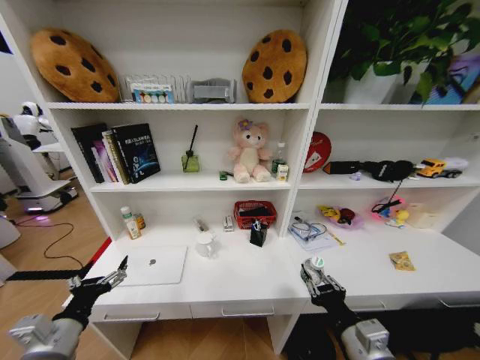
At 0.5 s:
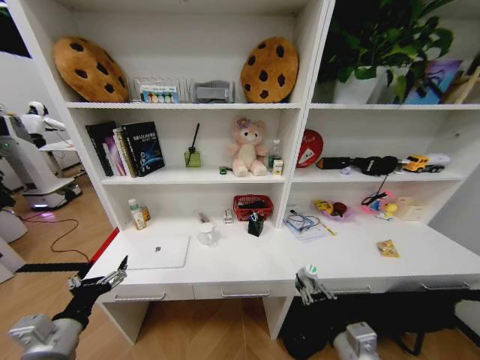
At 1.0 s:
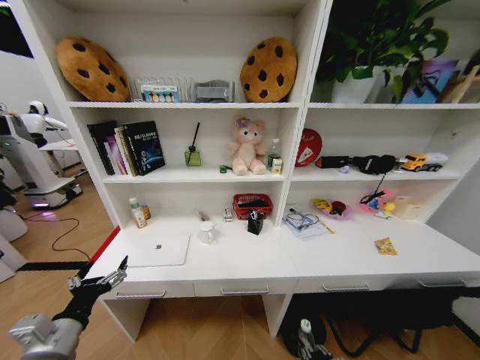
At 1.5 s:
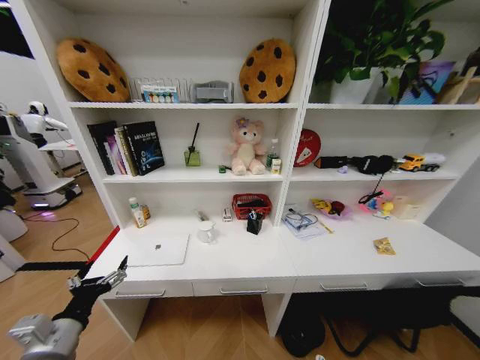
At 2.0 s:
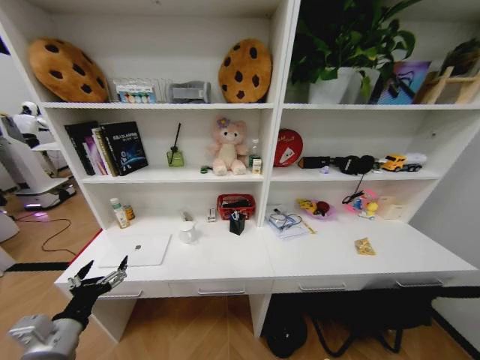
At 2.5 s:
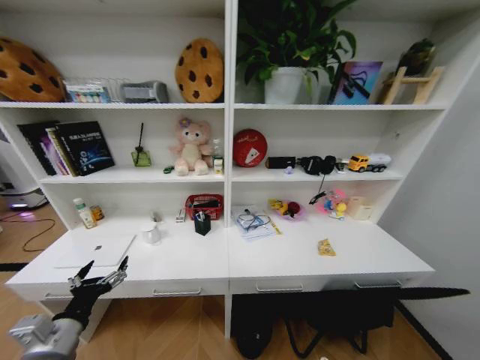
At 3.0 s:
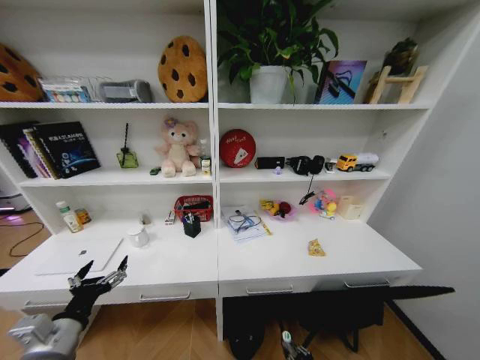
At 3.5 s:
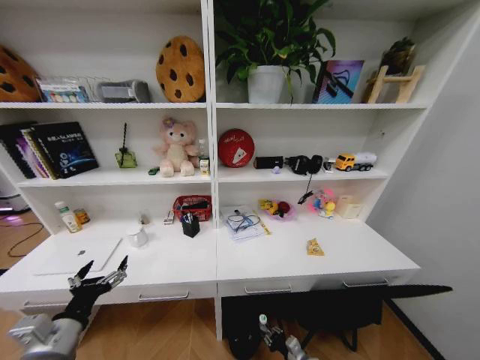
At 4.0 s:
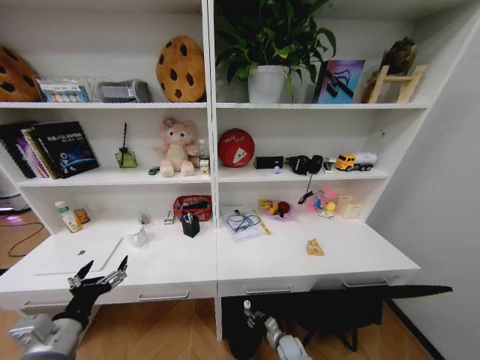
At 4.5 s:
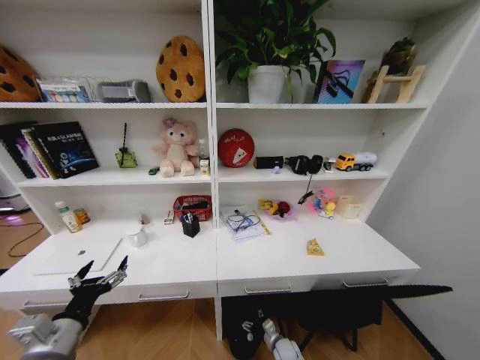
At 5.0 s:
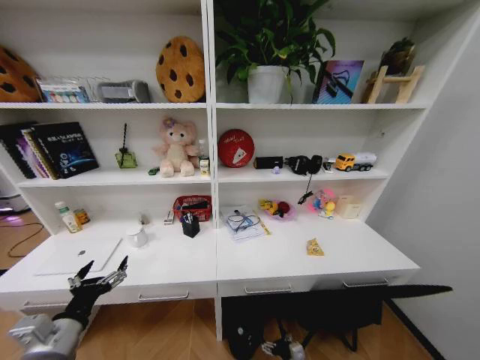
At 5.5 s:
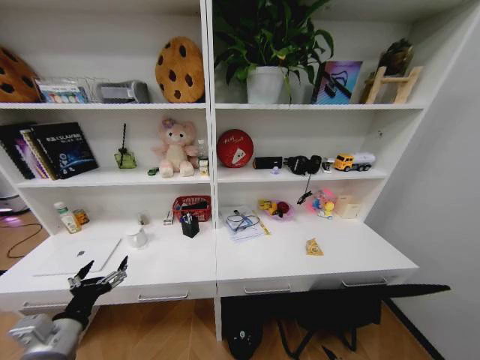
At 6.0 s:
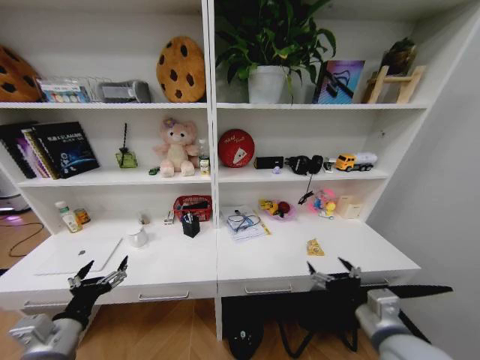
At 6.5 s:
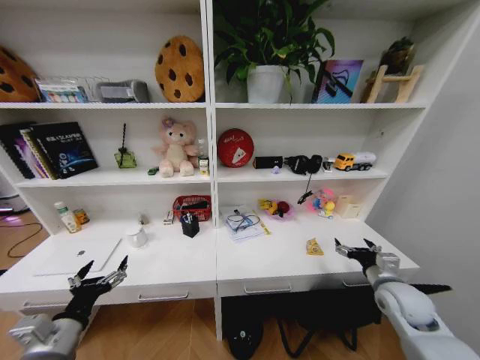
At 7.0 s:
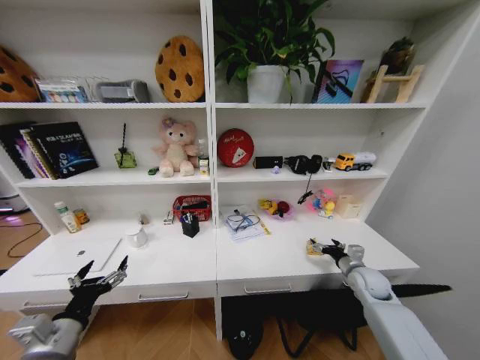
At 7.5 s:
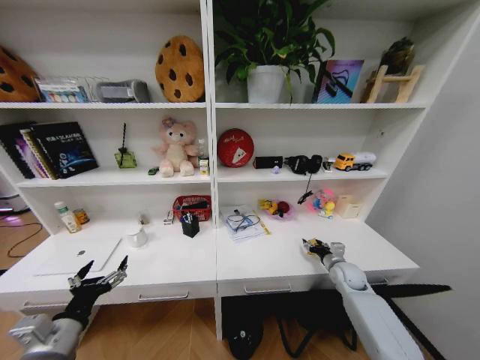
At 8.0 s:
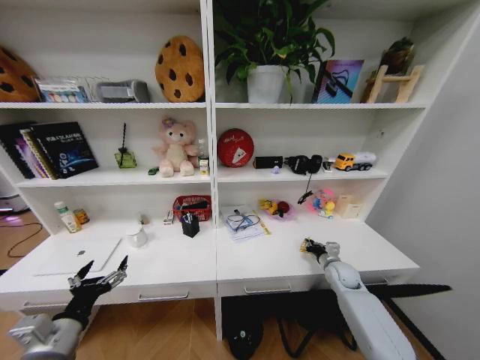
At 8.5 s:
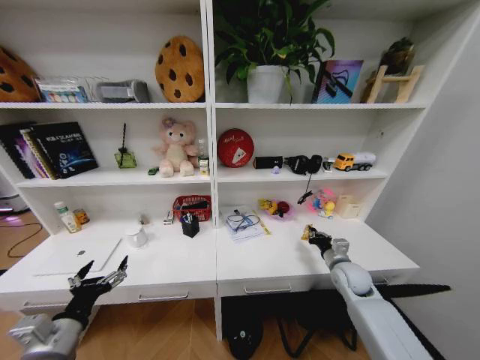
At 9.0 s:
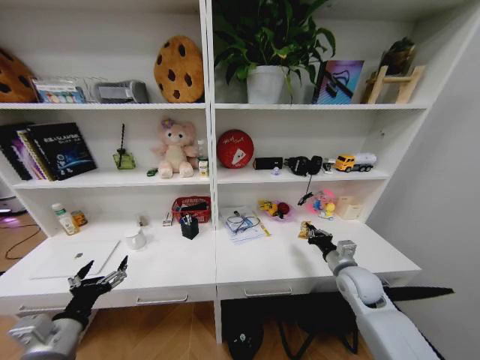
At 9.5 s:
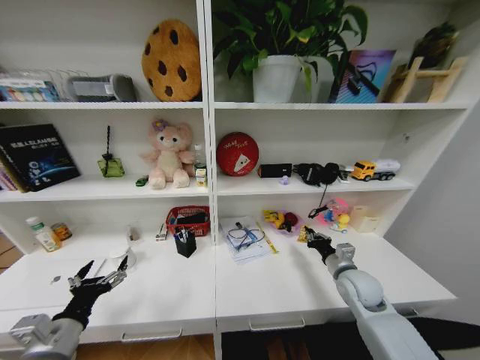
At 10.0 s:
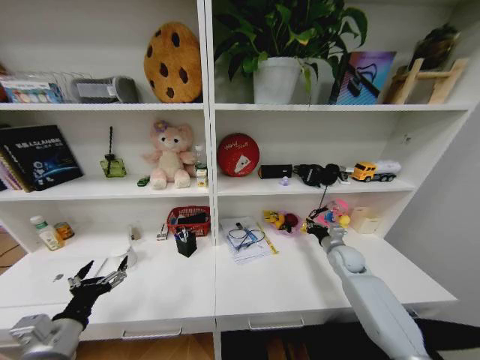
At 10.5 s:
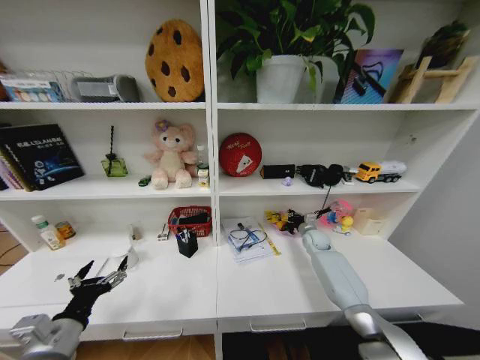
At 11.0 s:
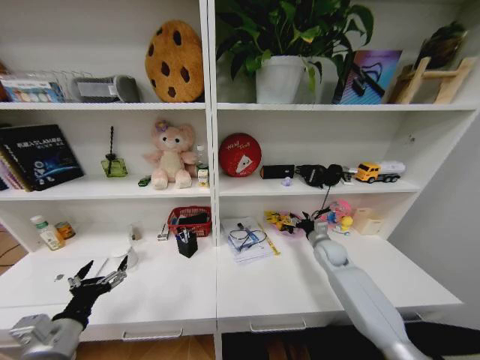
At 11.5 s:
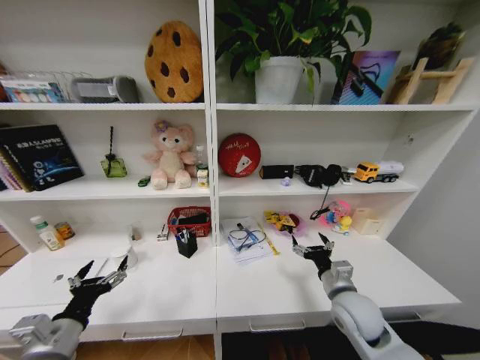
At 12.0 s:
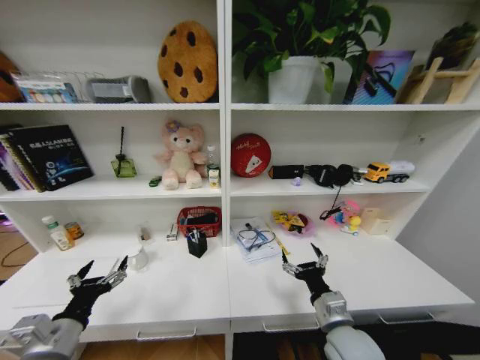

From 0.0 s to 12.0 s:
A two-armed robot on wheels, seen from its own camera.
Task of the whole recording: Organize the objects on the table.
From 0.0 s to 2.0 s: The right gripper goes roughly 30 cm downward and backward.
From 2.0 s to 4.0 s: The right gripper goes some 30 cm forward, downward and to the left.
From 4.0 s to 6.0 s: The right gripper moves upward, about 40 cm, and opens its fingers.
From 6.0 s to 8.0 s: The right gripper goes some 35 cm forward, downward and to the right, and closes up.
From 8.0 s to 10.0 s: The right gripper shifts about 5 cm upward, and moves roughly 10 cm backward and comes back.
From 10.0 s to 12.0 s: The right gripper is displaced backward and to the left by roughly 30 cm, and opens up.

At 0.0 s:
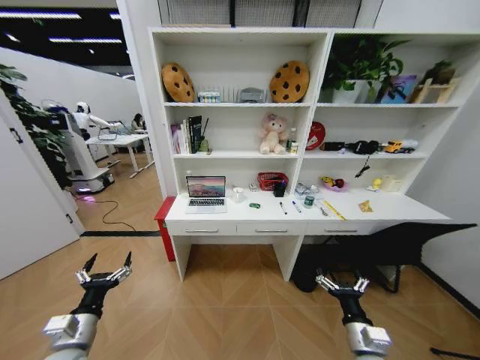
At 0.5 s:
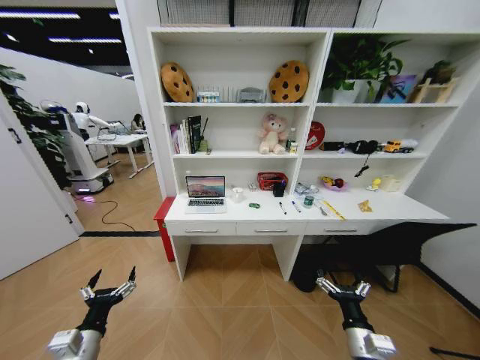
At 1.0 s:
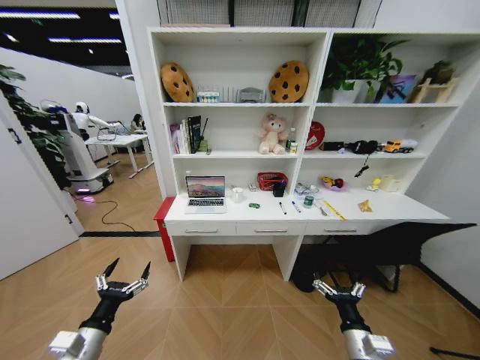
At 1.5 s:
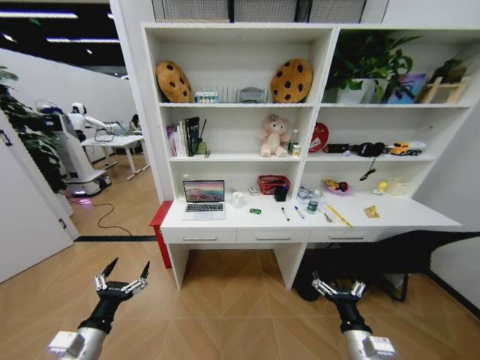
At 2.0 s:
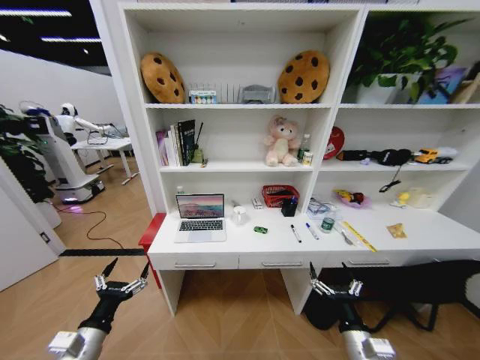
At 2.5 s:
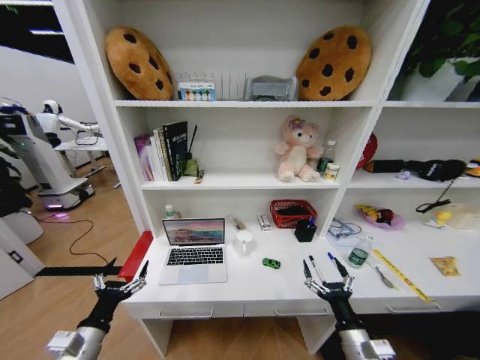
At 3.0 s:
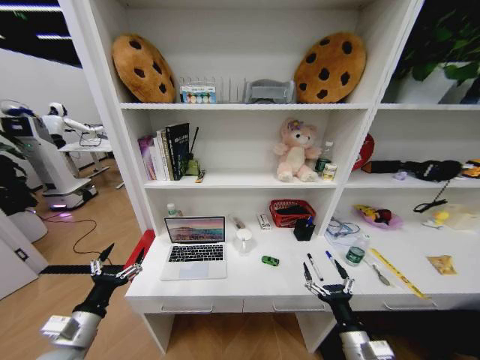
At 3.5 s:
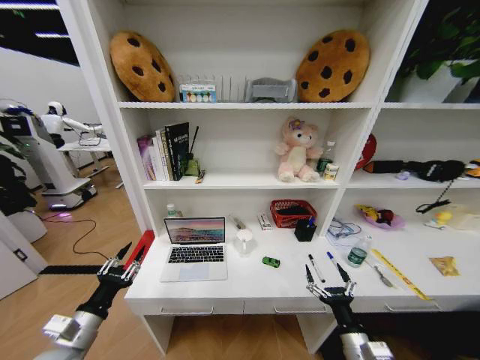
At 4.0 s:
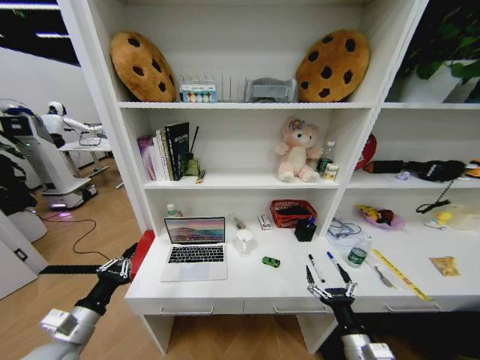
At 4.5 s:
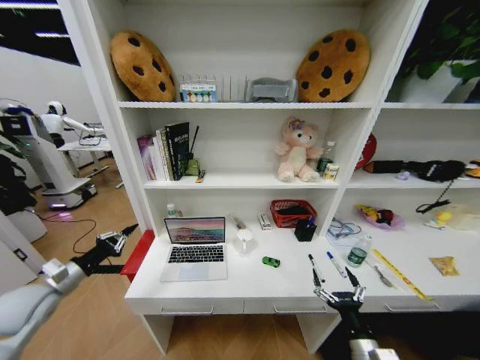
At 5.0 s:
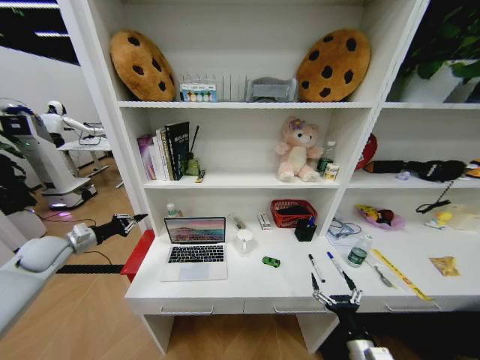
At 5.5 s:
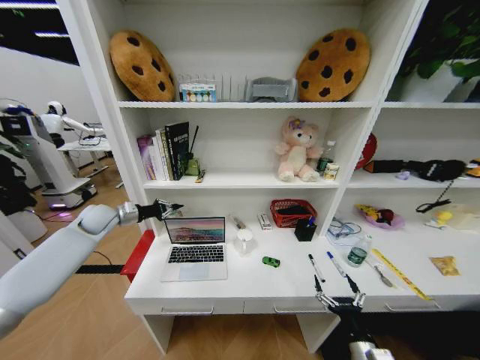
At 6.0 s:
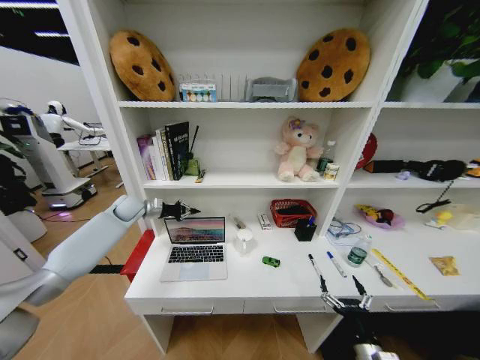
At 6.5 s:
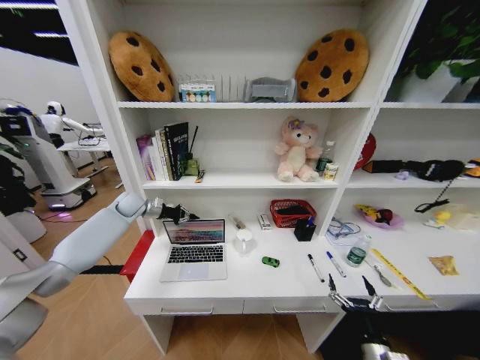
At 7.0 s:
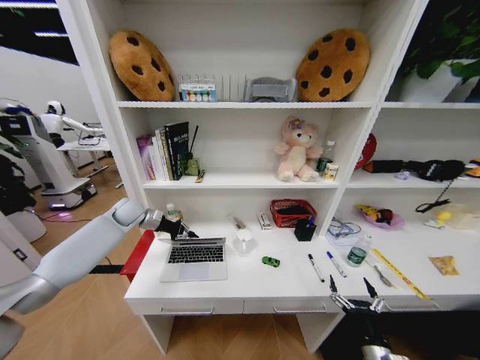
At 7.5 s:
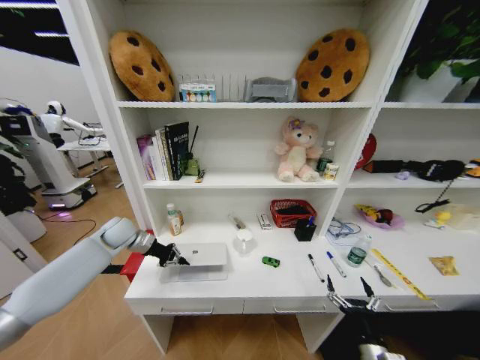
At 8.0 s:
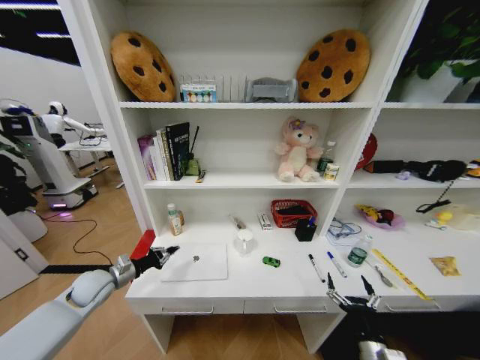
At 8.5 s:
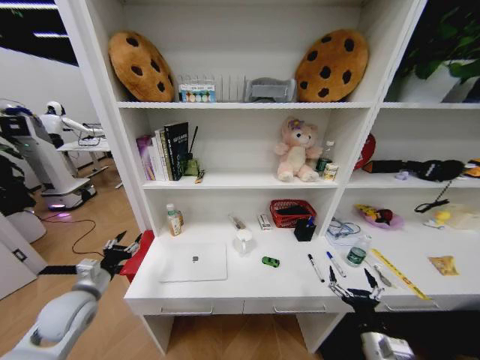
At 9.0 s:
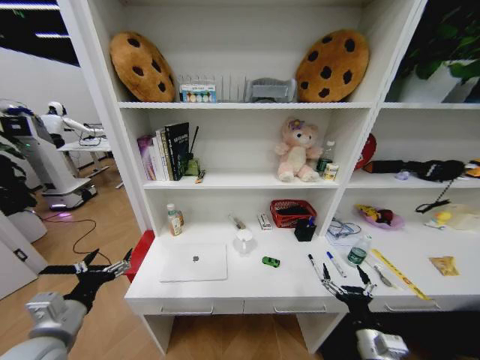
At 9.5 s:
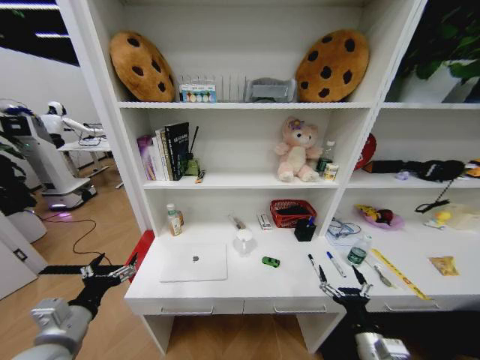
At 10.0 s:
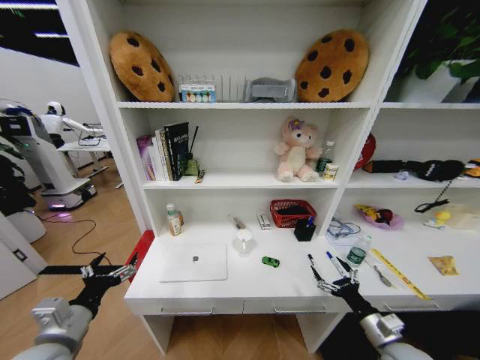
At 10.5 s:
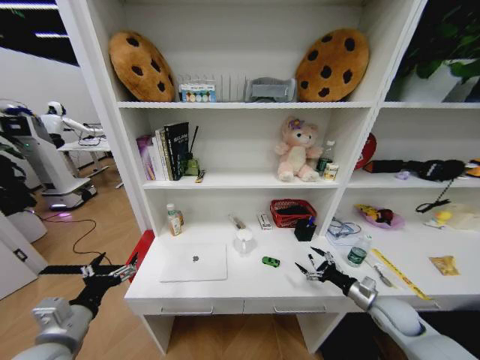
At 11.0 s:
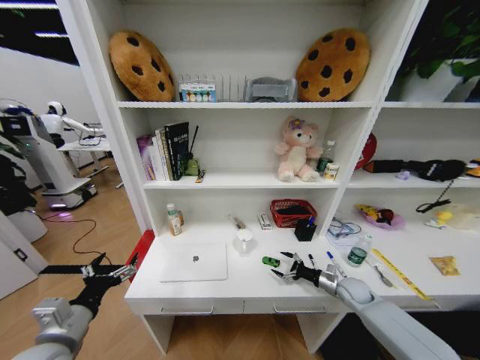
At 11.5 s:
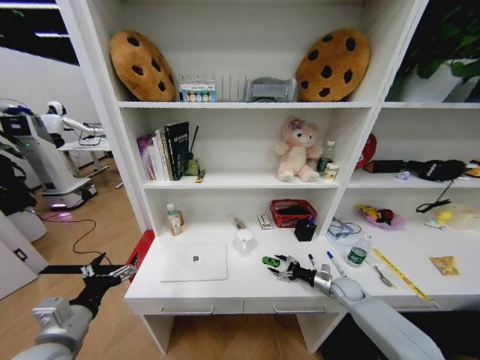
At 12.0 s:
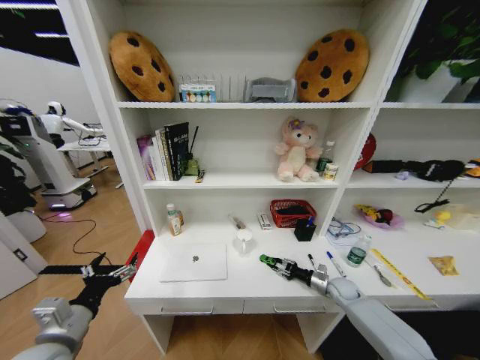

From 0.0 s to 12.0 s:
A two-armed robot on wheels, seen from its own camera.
Task of the whole recording: Organize the objects on the table.
From 2.0 s to 4.0 s: The left gripper changes place by approximately 5 cm, and closes its fingers.
From 4.0 s to 6.0 s: The left gripper goes some 40 cm forward.
From 6.0 s to 8.0 s: The left gripper goes some 25 cm backward and downward.
From 8.0 s to 10.0 s: The right gripper shifts some 5 cm to the right and forward, while the left gripper travels backward by approximately 20 cm, and opens its fingers.
From 10.0 s to 12.0 s: The right gripper moves forward and downward, some 25 cm, and closes.

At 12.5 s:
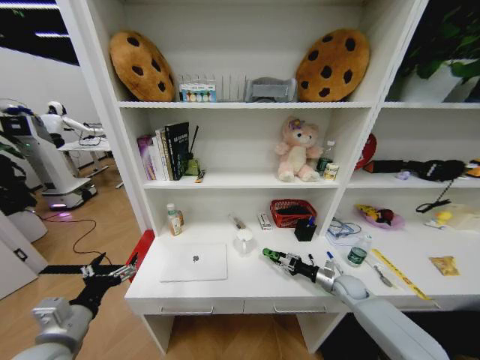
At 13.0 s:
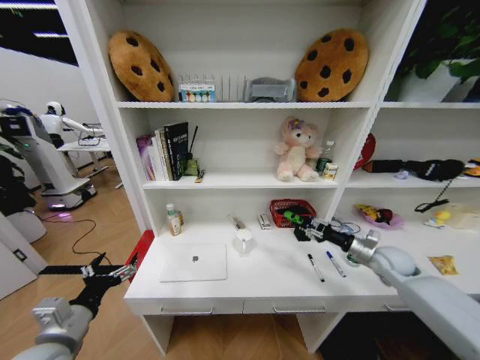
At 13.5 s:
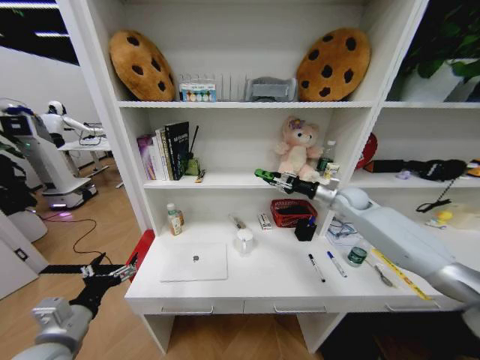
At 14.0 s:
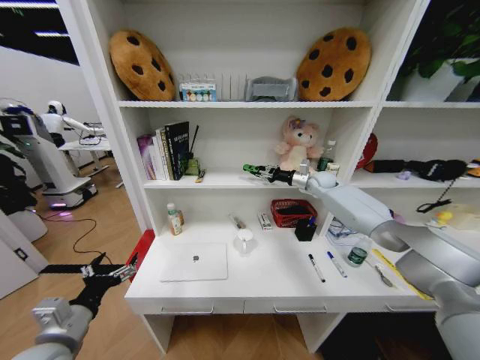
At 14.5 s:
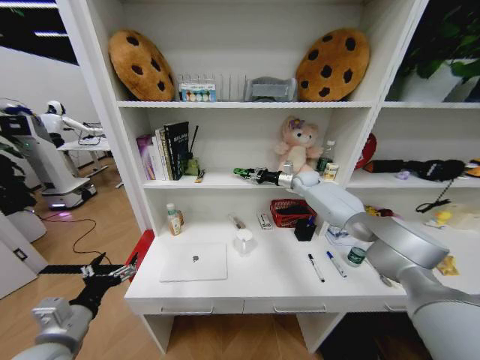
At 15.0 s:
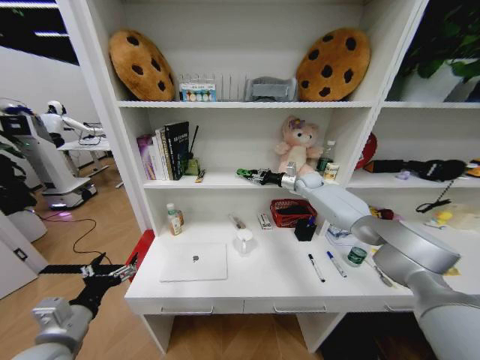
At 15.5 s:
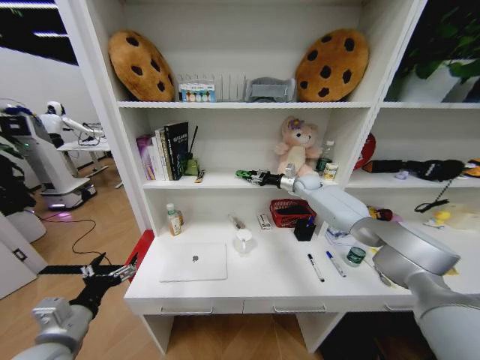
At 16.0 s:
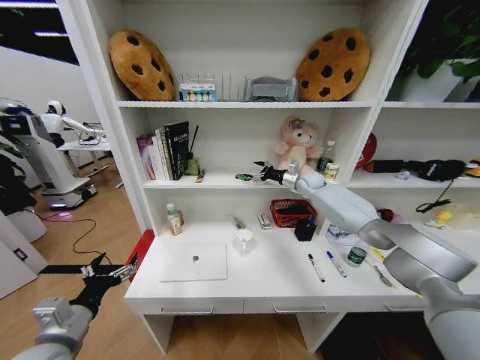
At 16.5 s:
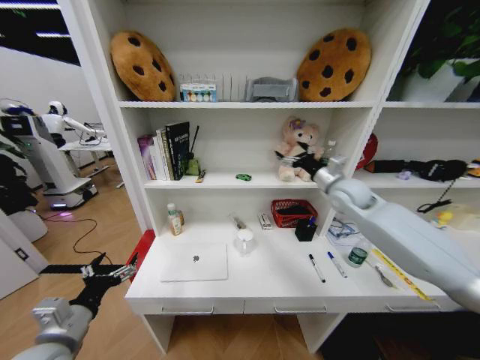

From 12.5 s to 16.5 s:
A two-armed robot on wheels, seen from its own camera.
Task of the whole recording: Organize the objects on the table.
From 12.5 s to 14.5 s: The right gripper travels forward and upward by roughly 40 cm.
From 14.5 s to 16.5 s: The right gripper goes approximately 20 cm backward, and opens.
